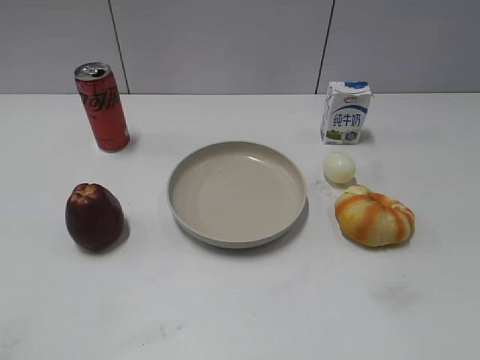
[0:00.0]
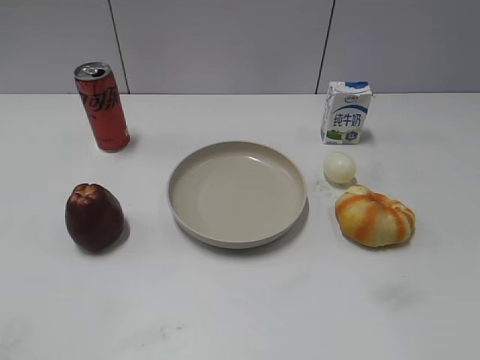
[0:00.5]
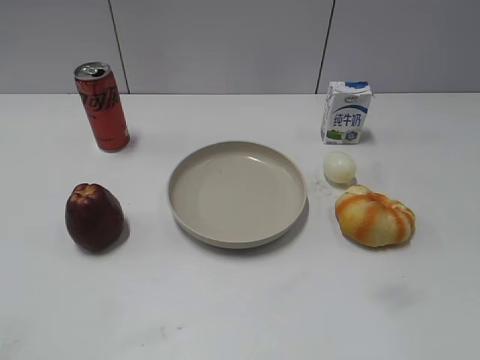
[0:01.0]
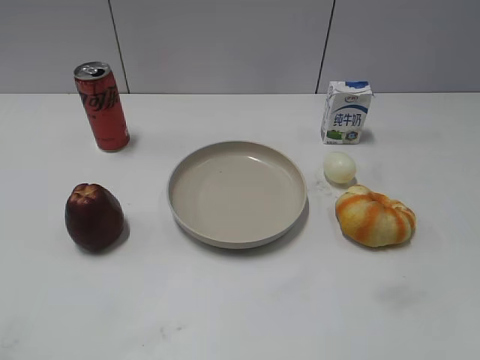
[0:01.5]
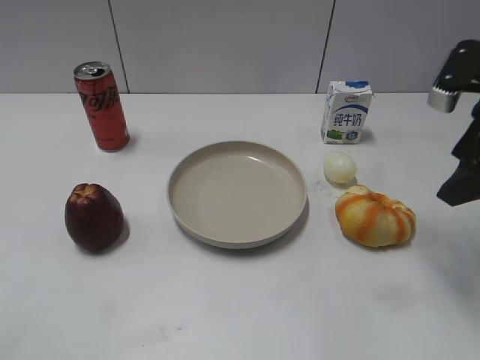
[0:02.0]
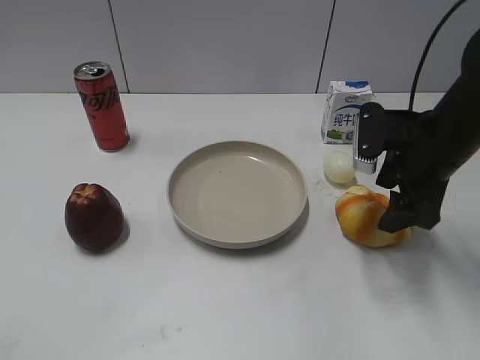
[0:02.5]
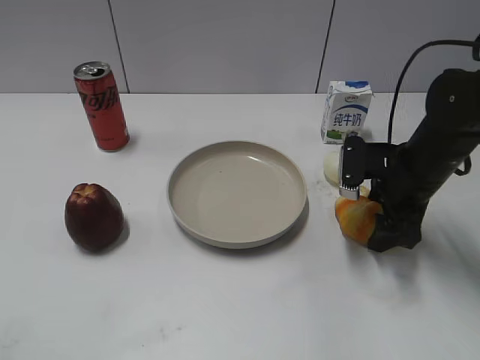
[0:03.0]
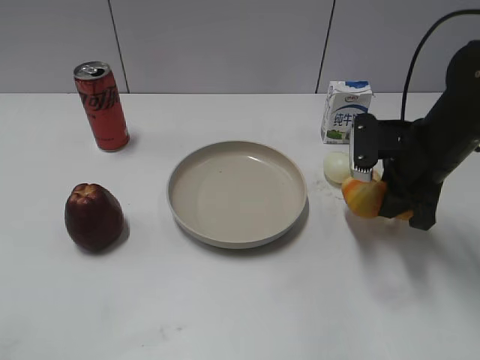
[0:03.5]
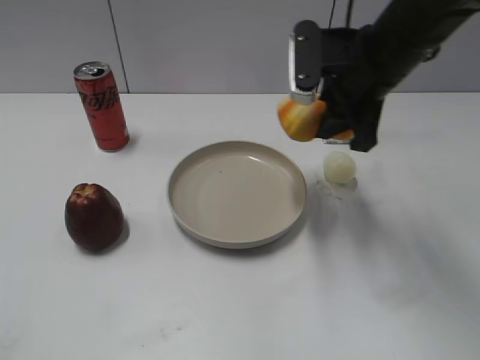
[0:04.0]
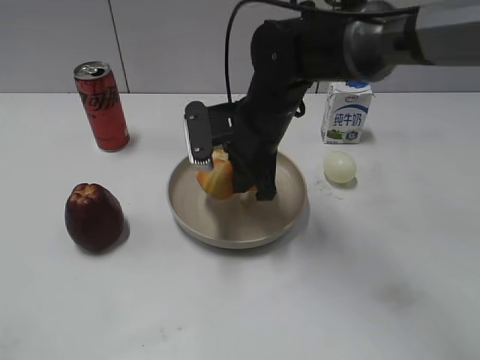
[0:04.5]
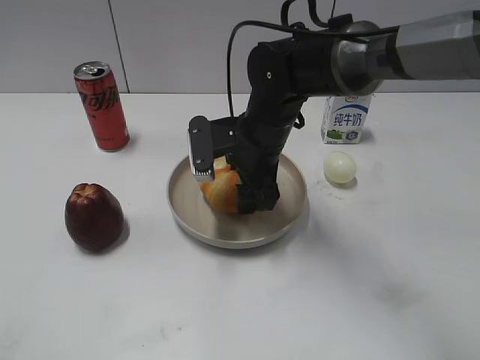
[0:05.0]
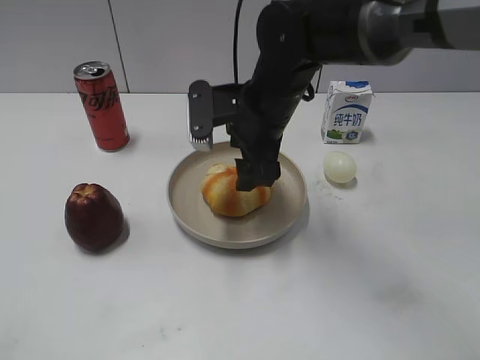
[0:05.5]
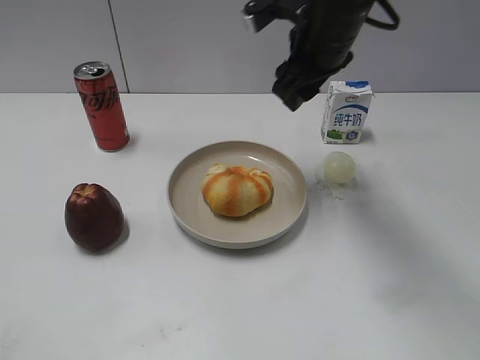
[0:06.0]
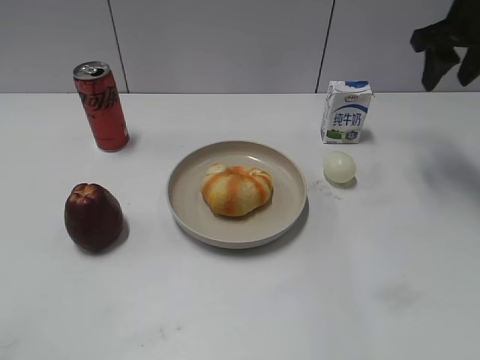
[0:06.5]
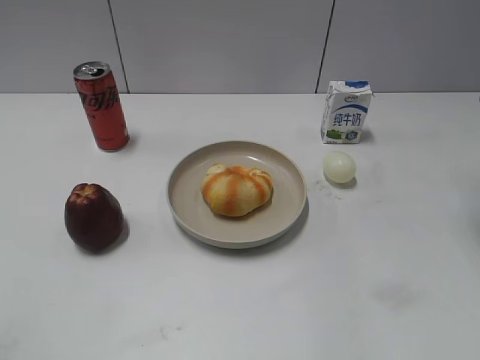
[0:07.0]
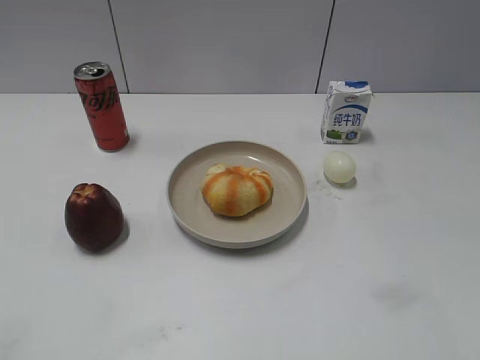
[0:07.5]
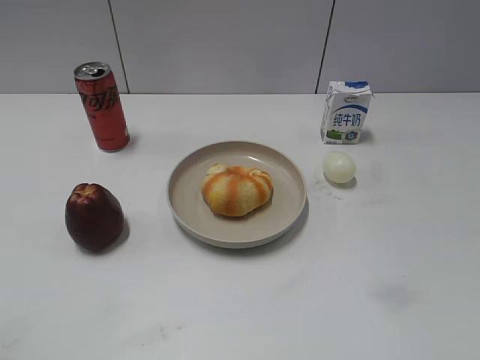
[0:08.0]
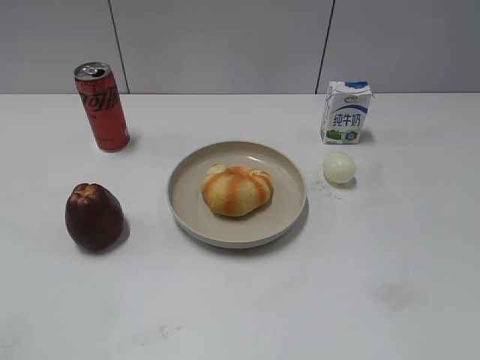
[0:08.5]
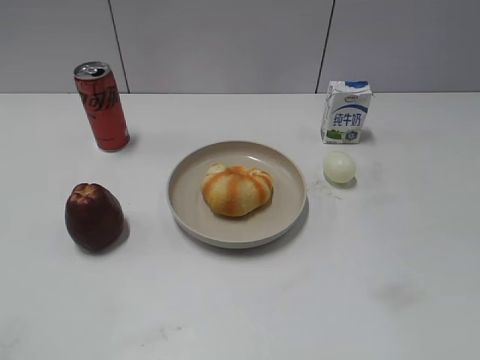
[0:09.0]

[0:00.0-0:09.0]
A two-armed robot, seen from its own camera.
Step, 0:01.0 to 0:03.0: Grasp the round bread with right gripper.
Step, 0:03.5 to 0:05.5: Place the round bread on the plate with right gripper.
0:02.0 to 0:04.5: The right gripper shifts roughly 25 cm to the left and downward, and closes.
0:04.5 to 0:07.0: The right gripper shifts roughly 30 cm to the right and upward, and opens up.
